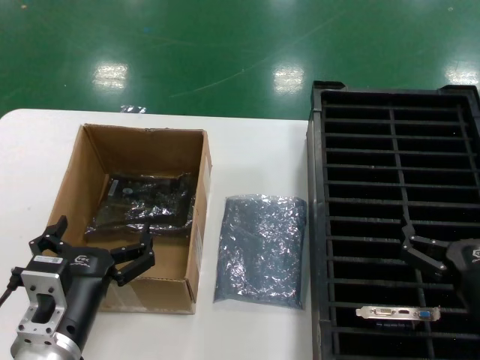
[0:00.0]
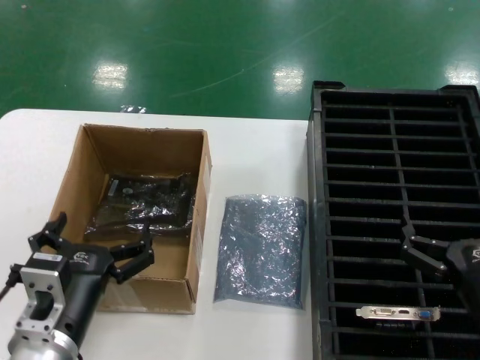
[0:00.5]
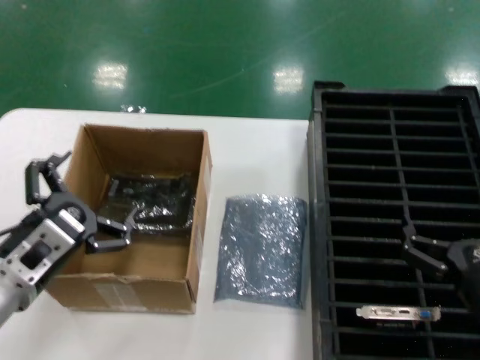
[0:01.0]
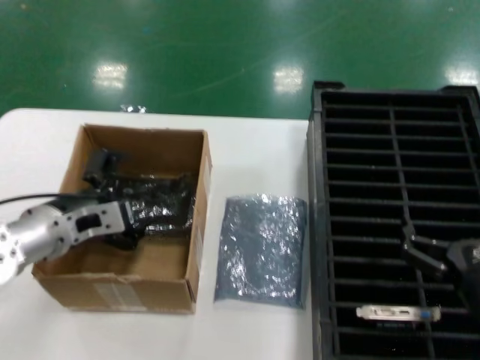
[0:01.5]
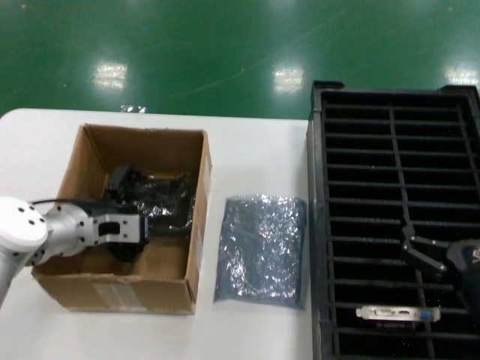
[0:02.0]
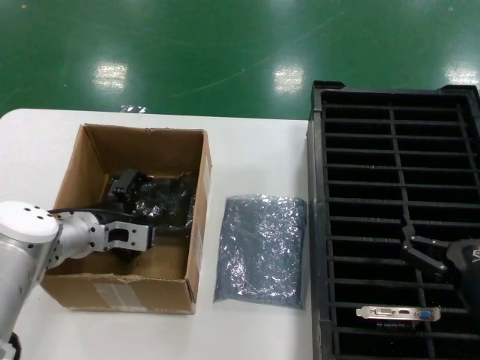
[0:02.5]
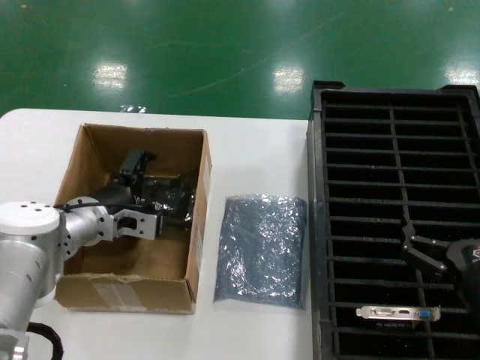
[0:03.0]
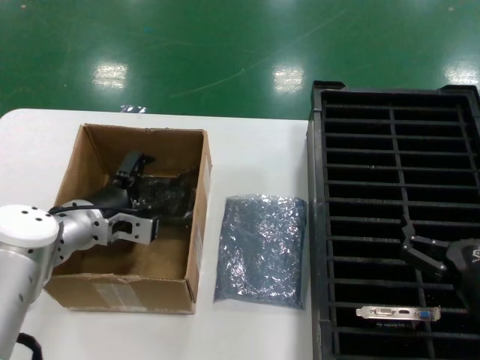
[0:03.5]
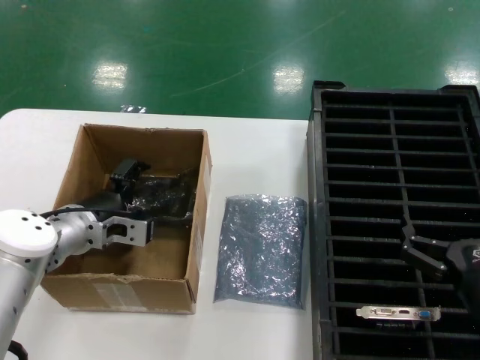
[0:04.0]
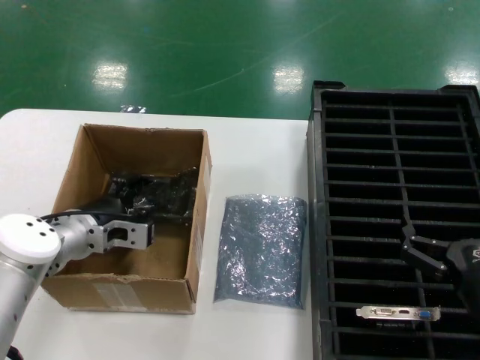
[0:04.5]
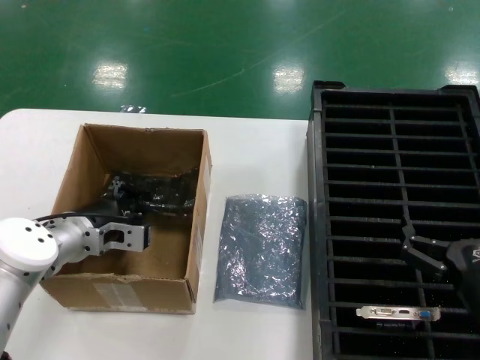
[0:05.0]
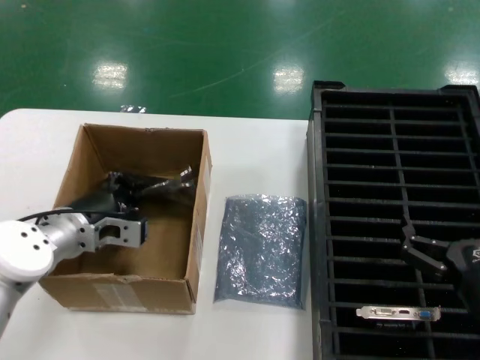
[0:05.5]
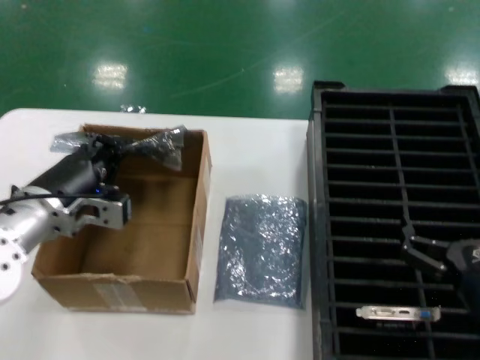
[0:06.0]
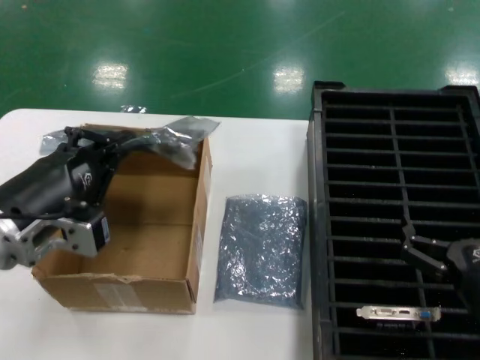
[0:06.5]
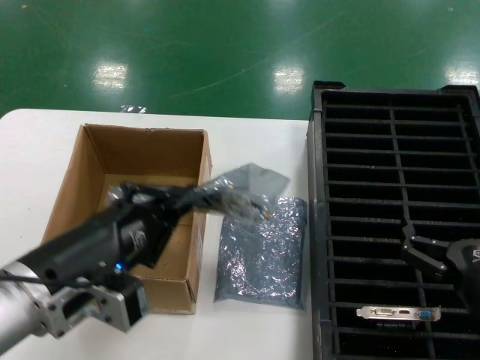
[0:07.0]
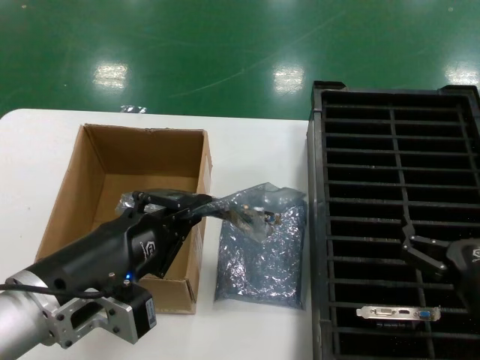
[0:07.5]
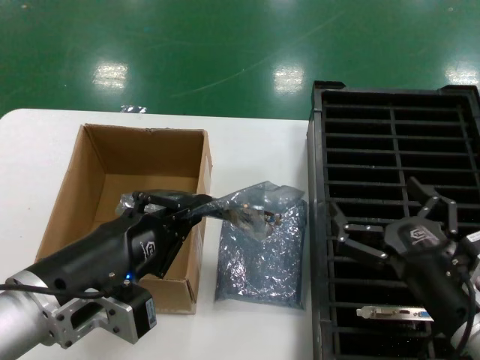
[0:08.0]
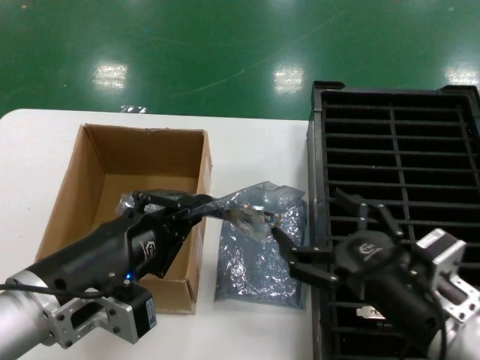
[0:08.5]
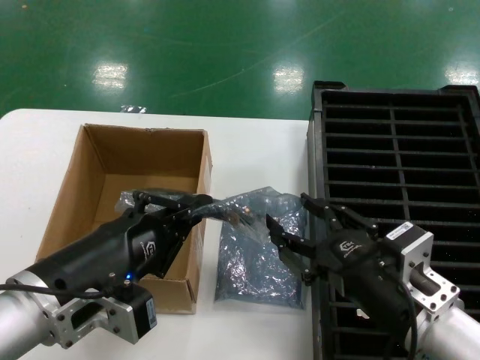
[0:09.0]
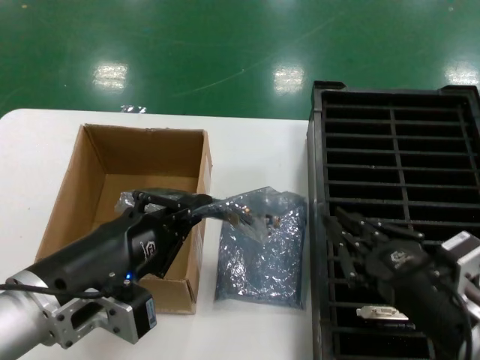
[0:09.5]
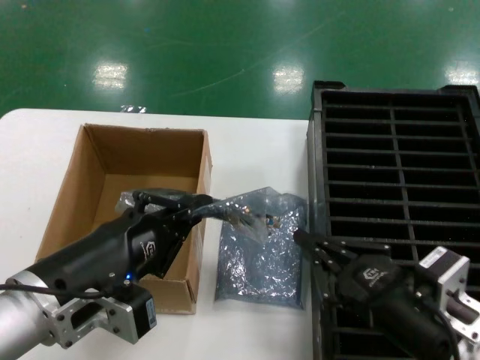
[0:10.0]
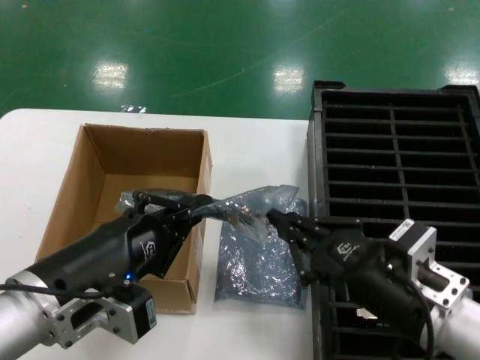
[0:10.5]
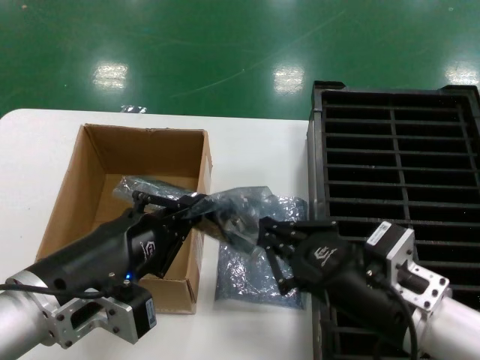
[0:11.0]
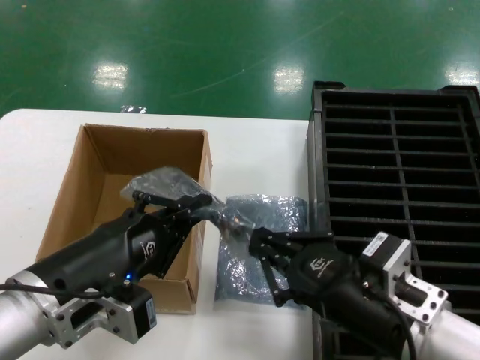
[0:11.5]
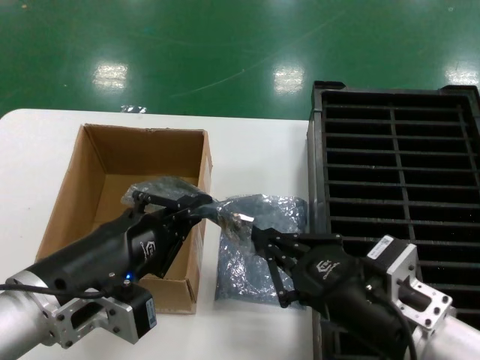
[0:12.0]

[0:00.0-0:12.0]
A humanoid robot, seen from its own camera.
Task of the whole recording: take out graphics card from box remove packaging put into black container.
Step, 0:00.0 to 0:05.0: Grasp the bag.
Step, 0:05.5 to 0:07.0: Lift the bag.
0:00.0 to 0:02.0: The left hand shifts approximately 20 cm forward.
0:02.0 to 0:04.0: The hands make only small movements.
0:04.0 to 0:06.0: The left hand shifts approximately 5 cm backward.
0:06.0 to 0:08.0: The left hand heads backward, covering some 15 cm.
0:08.0 to 0:10.0: The right hand moves some 5 cm.
0:10.0 to 0:12.0: The hands make only small movements.

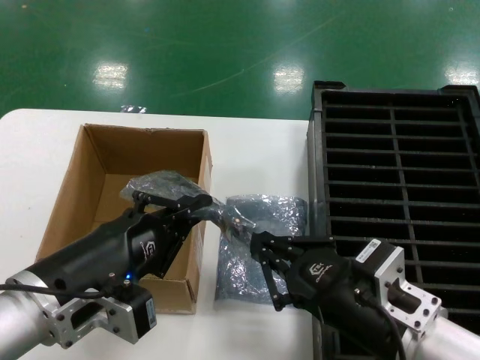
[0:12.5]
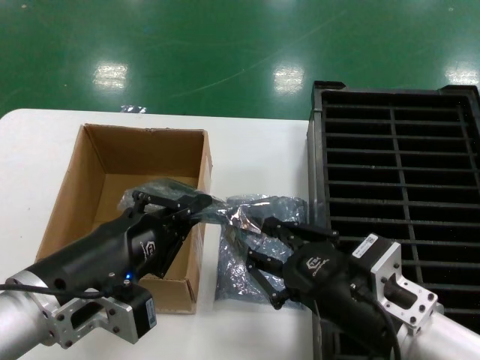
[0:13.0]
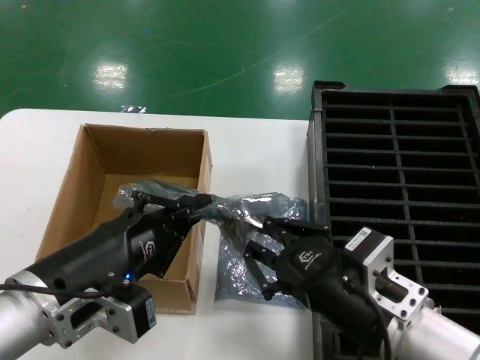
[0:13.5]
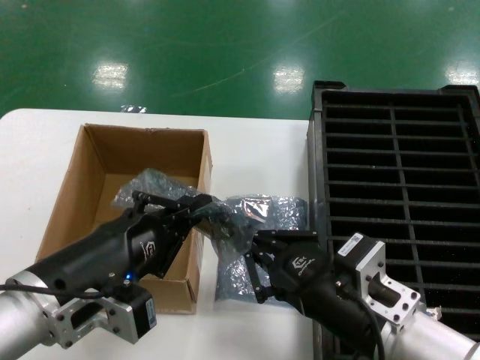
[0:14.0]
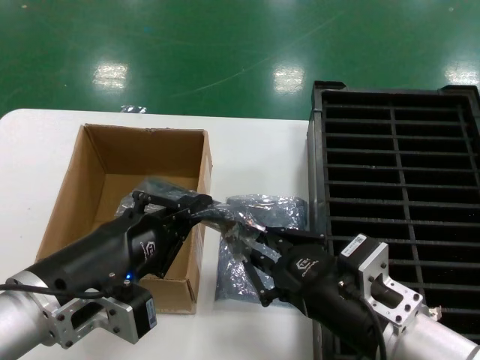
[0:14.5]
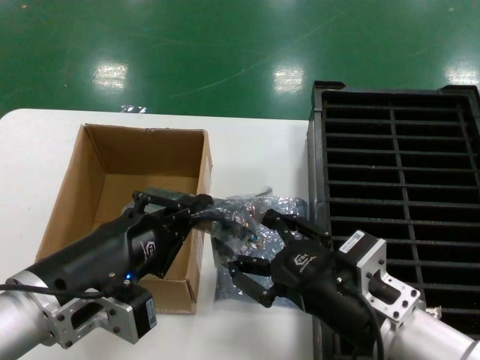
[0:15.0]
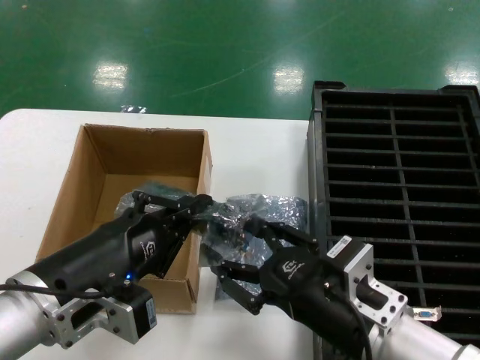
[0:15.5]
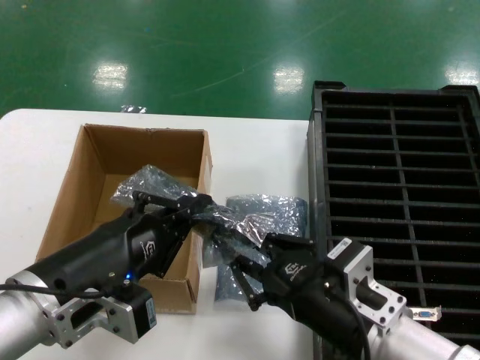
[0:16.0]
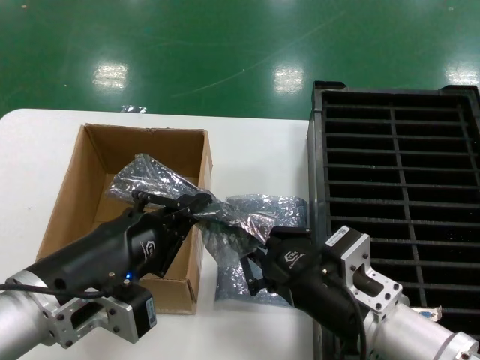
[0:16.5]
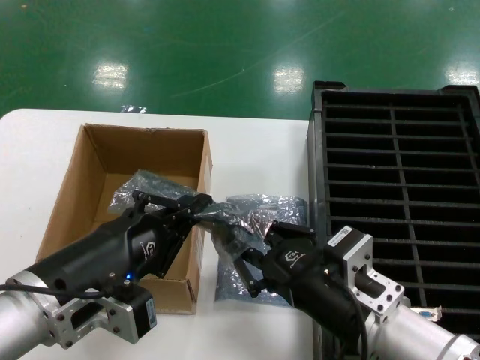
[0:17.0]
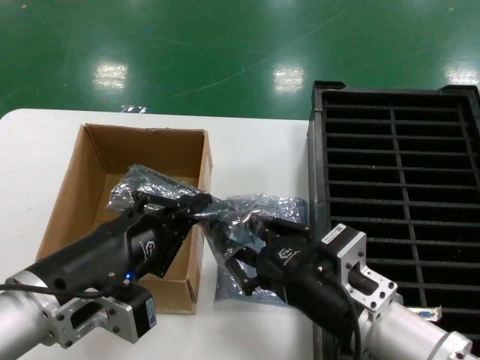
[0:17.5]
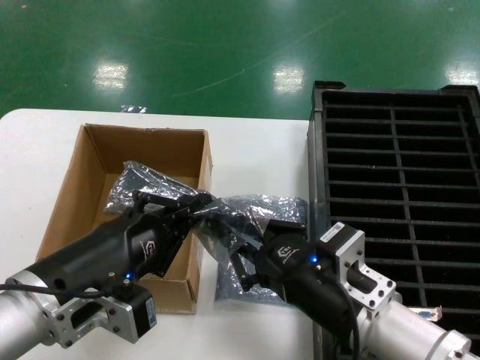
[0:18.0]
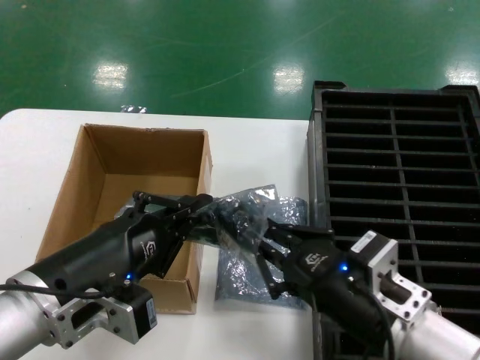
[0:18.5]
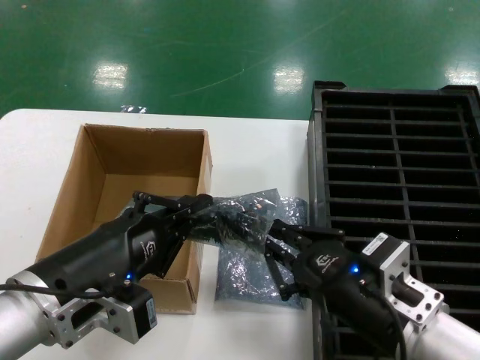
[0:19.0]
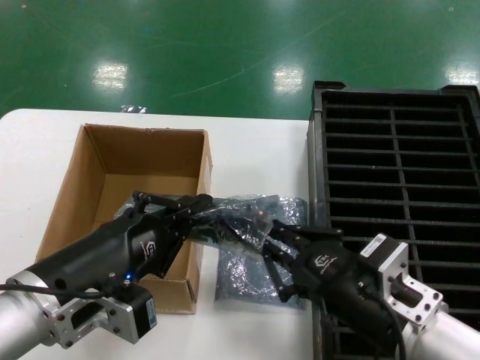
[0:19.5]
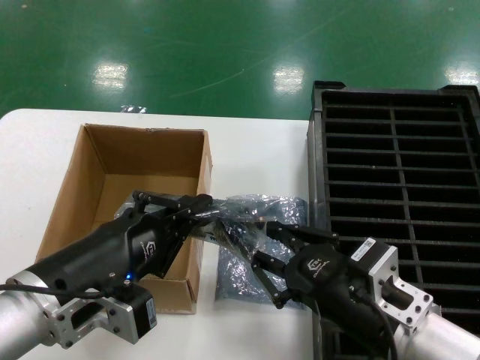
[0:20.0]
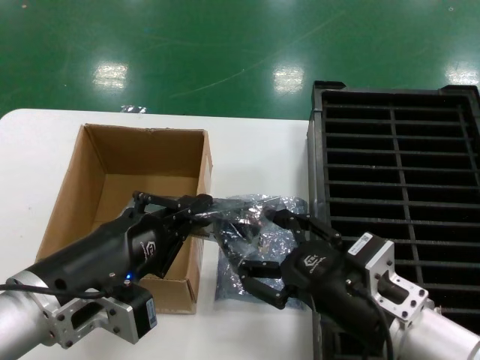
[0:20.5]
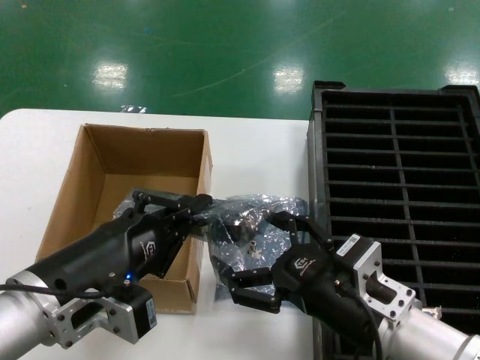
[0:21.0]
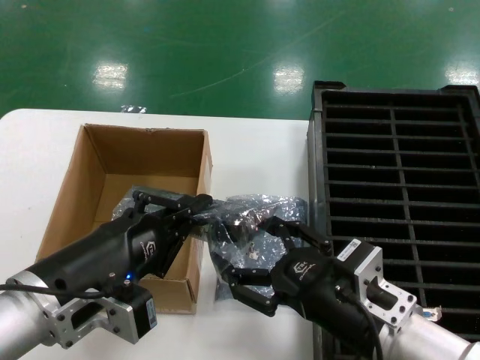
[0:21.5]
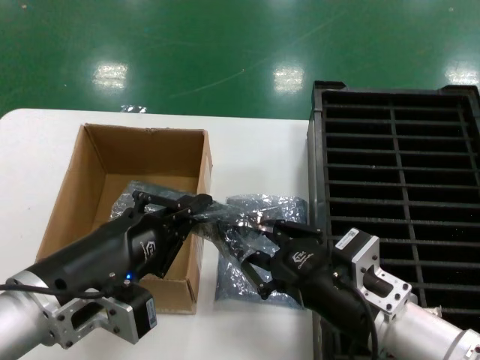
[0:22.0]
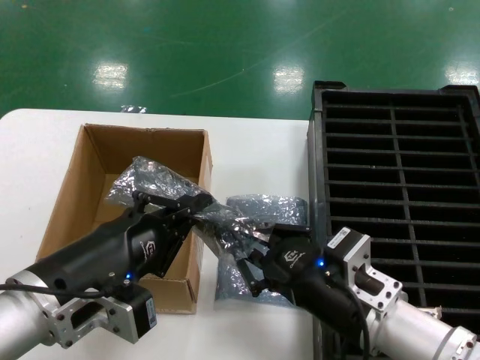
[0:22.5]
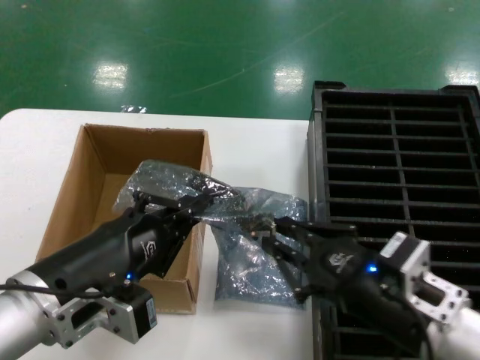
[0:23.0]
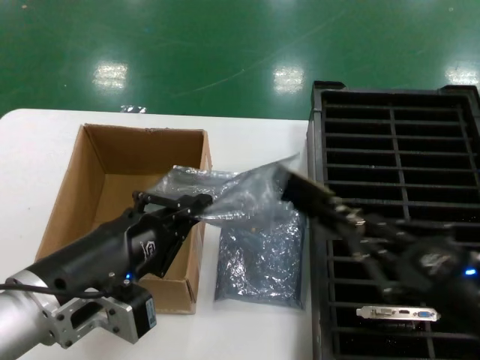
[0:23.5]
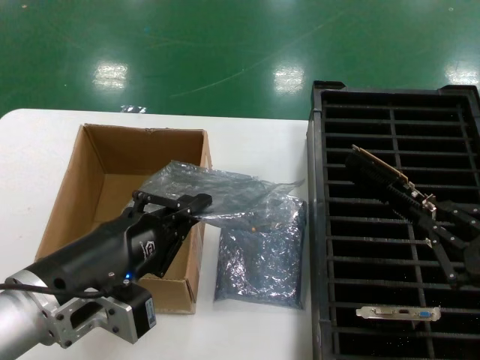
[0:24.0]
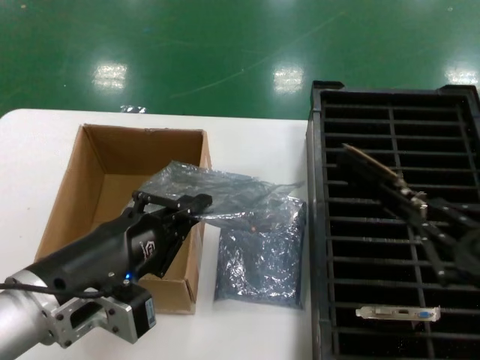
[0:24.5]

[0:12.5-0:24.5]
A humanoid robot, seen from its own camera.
Task of the whole recording: take out graphics card from box remove packaging put into black container.
Step, 0:12.5 to 0:23.5: Take out the hard disk of the bag.
0:12.5 to 0:22.5: There are only small adjustments of the hands.
0:22.5 to 0:24.5: The right hand moves to the right, upward and backward, some 20 cm.

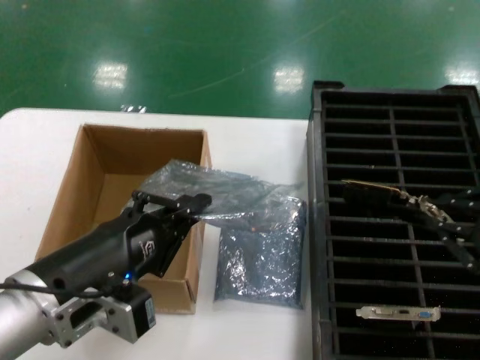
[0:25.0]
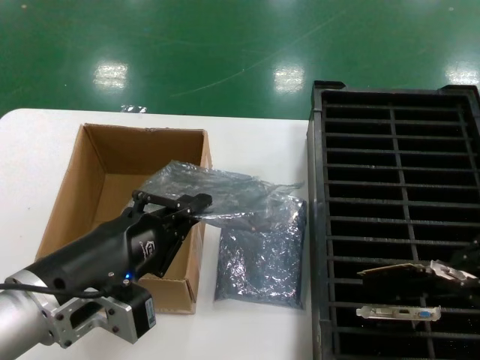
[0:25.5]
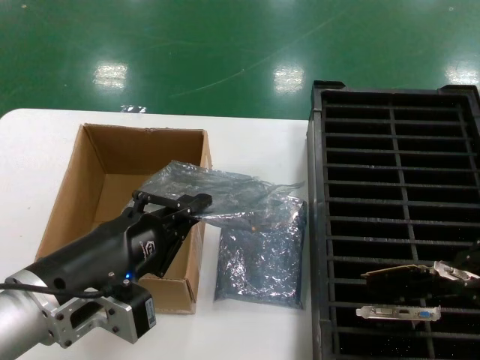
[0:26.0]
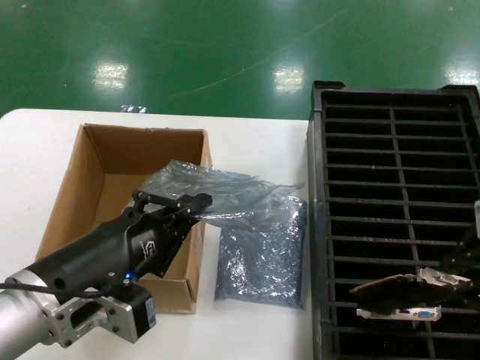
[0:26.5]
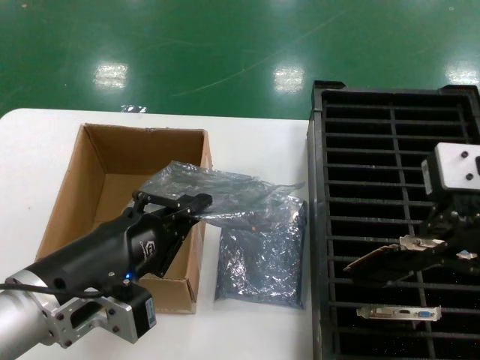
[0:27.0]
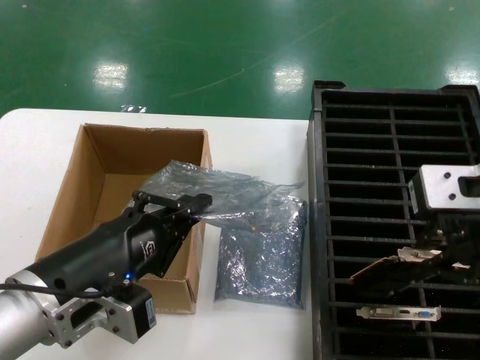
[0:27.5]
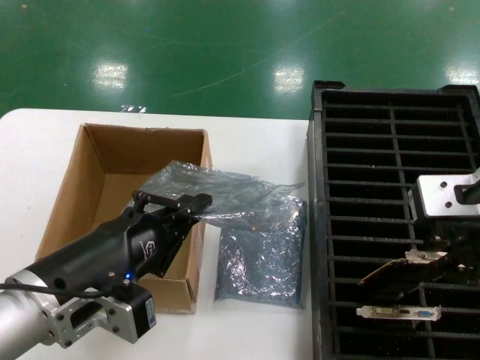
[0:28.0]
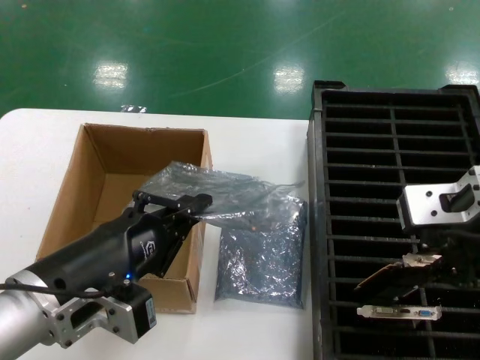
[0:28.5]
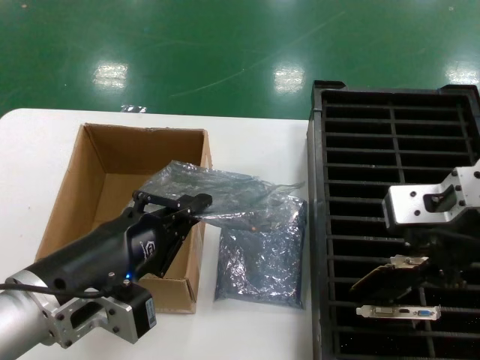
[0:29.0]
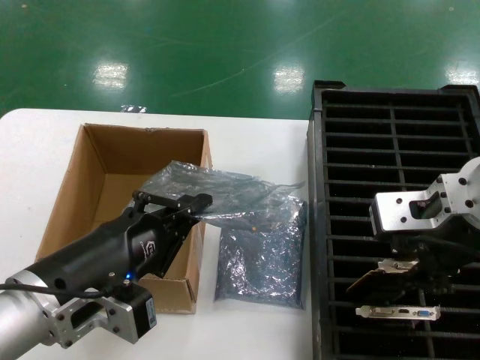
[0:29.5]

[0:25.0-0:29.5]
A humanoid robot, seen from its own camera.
Task of the whole recording: take out graphics card from box remove packaging put into black container.
0:25.0 to 0:27.0: The right hand moves upward, to the left and forward, about 15 cm.
0:27.0 to 0:29.5: The right hand goes about 5 cm downward.
